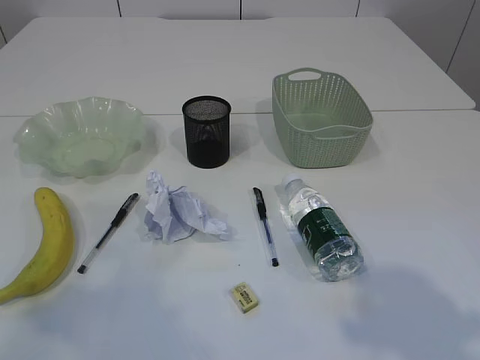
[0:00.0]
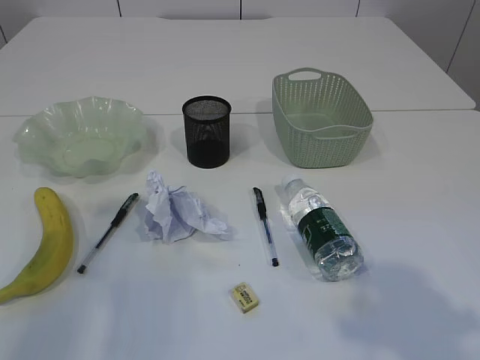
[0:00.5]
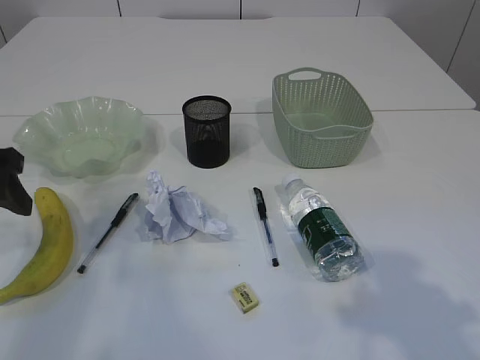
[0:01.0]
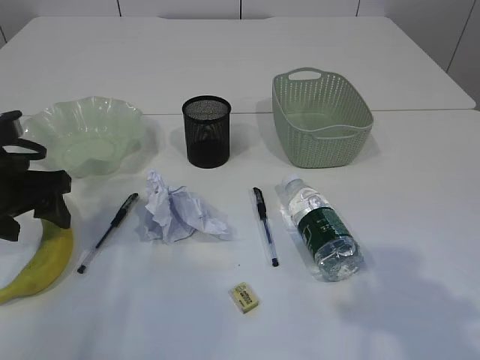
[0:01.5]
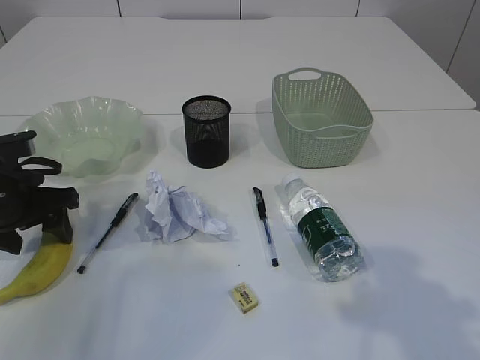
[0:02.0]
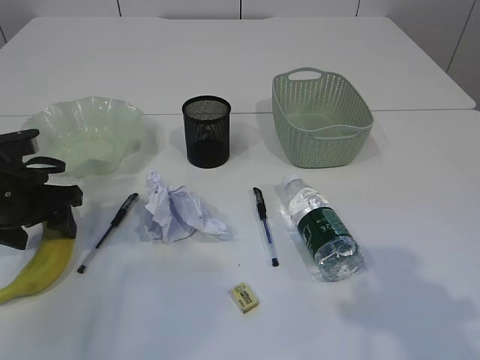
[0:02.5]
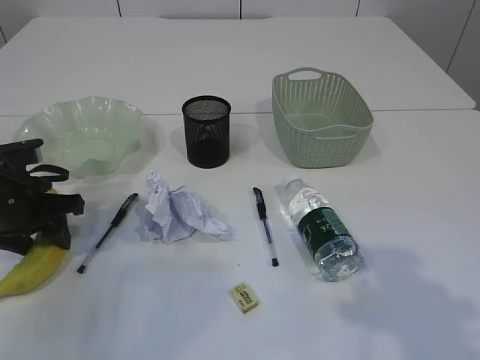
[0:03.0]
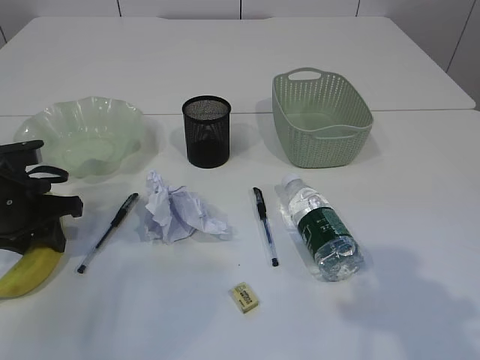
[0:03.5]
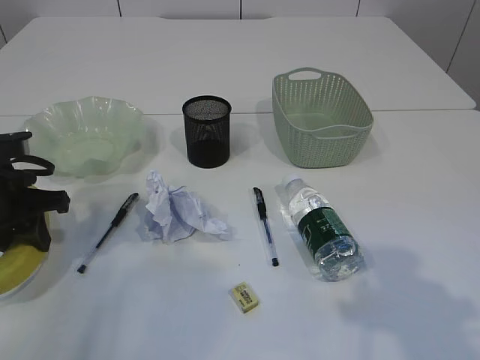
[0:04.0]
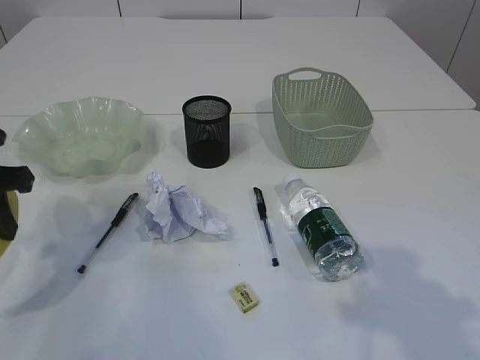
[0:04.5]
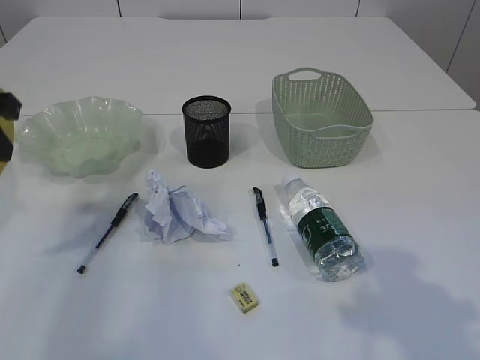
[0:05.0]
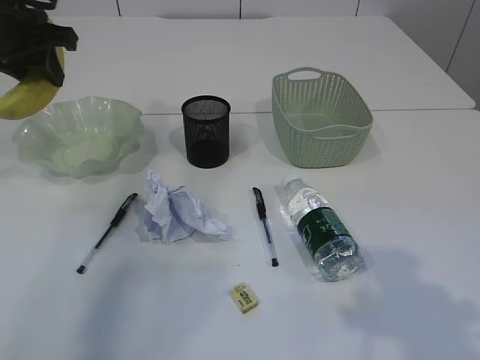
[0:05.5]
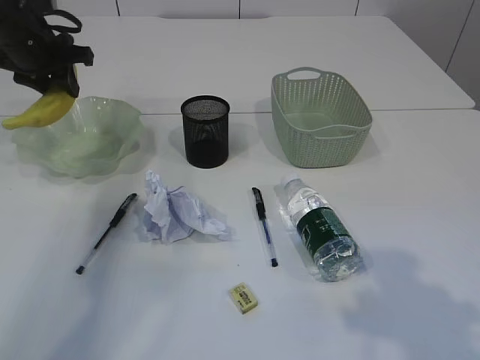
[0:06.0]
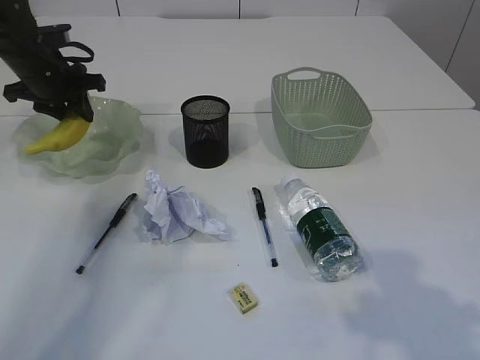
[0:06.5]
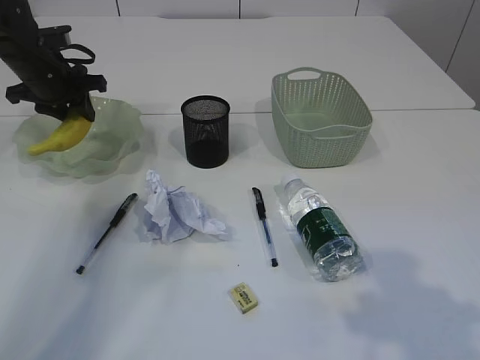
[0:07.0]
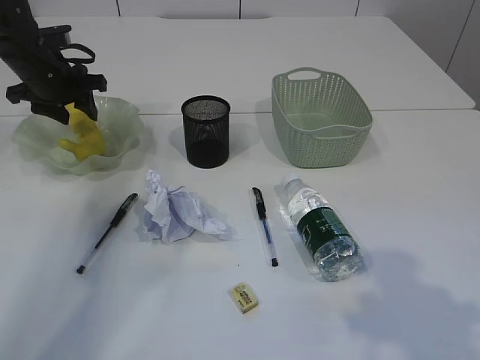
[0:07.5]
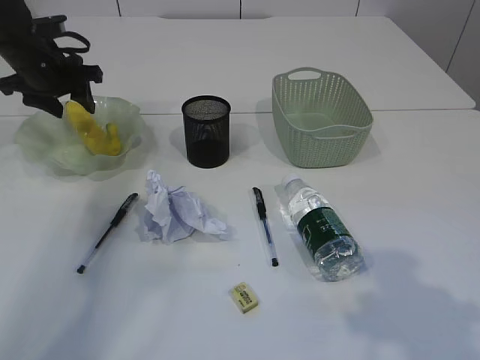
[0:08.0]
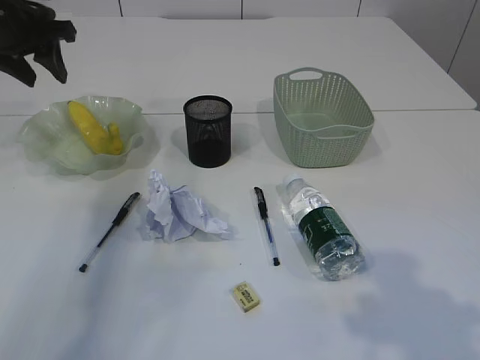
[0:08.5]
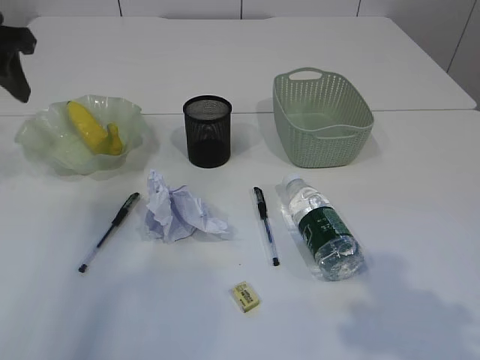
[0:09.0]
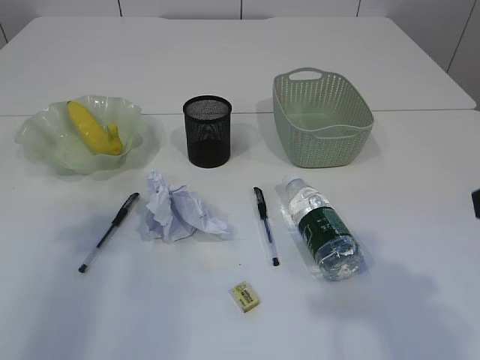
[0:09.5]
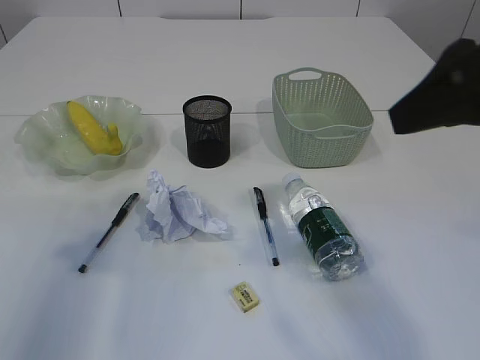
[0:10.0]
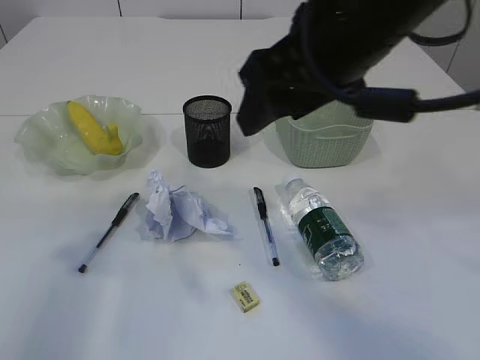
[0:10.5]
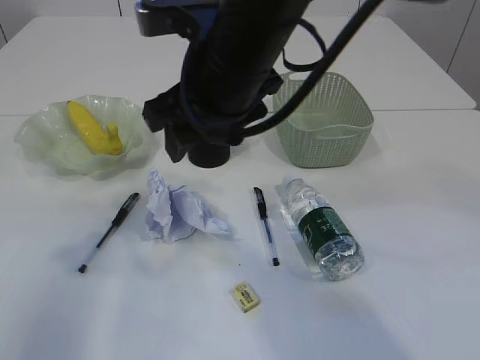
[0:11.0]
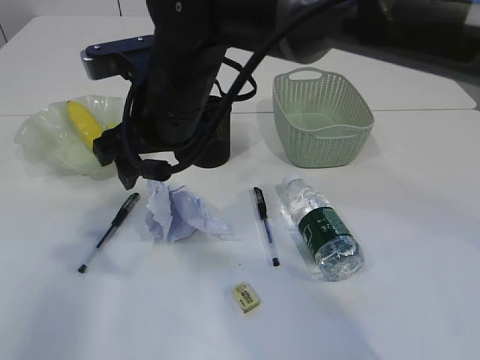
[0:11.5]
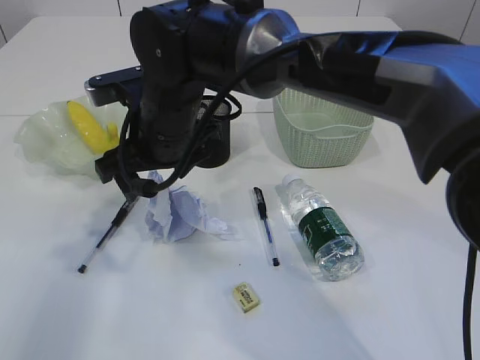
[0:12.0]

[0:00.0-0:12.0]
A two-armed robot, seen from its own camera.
Step, 0:04.5 to 0:08.0: Place the banana in the plate.
0:00.0 to 0:02.0: The left gripper shifts some 30 cm forward and downward.
0:02.0 to 0:04.0: The left gripper closes up.
0:04.0 to 0:06.0: The left gripper moves forward and upward, roughly 20 cm.
0:06.0 to 0:08.0: The grippers move only a little.
0:08.0 to 0:10.0: The left gripper goes roughly 30 cm backward, while the right gripper is displaced upward, forward and to the left by about 15 cm.
0:10.0 to 0:12.0: The right gripper shifts approximately 35 cm to the left, forward and downward.

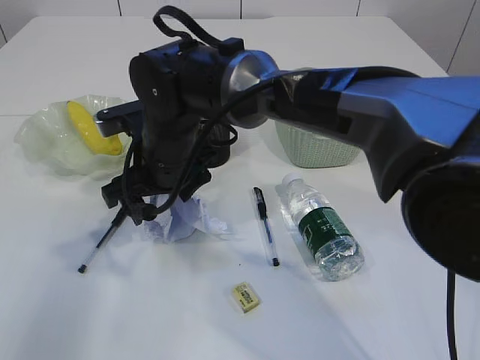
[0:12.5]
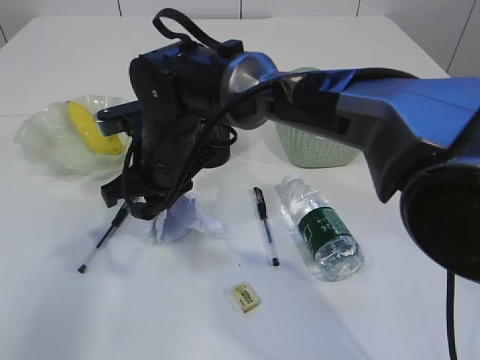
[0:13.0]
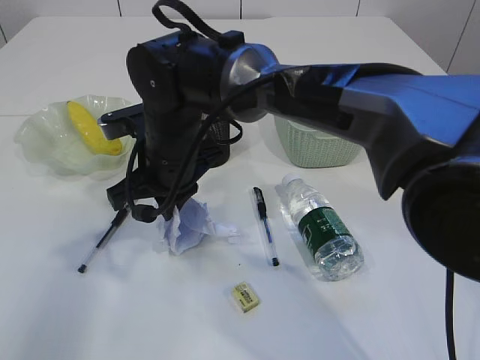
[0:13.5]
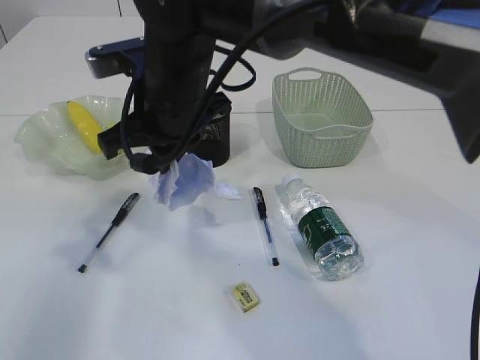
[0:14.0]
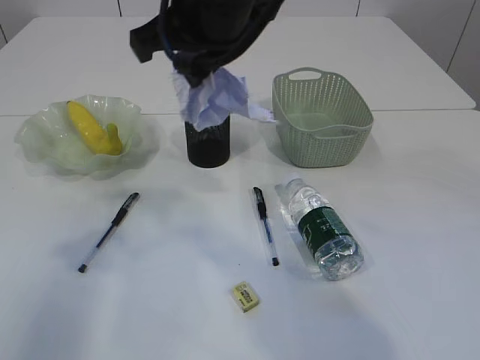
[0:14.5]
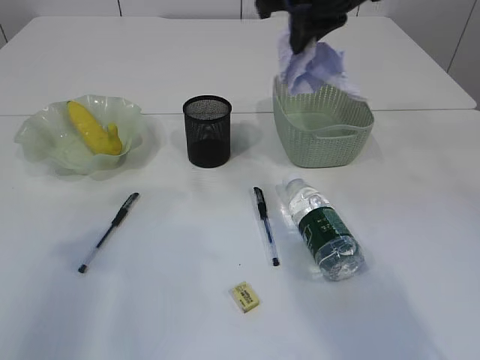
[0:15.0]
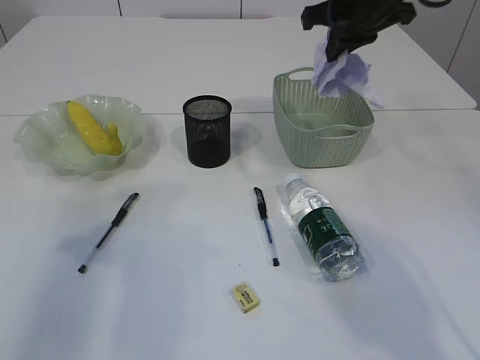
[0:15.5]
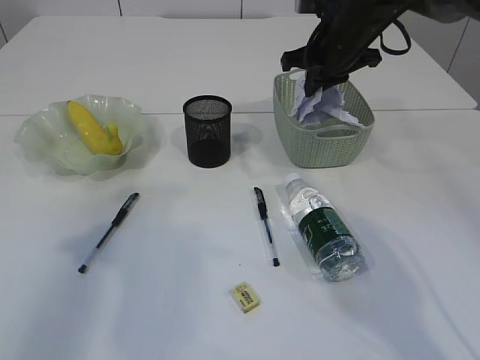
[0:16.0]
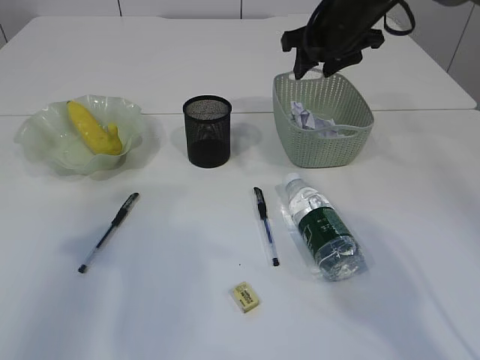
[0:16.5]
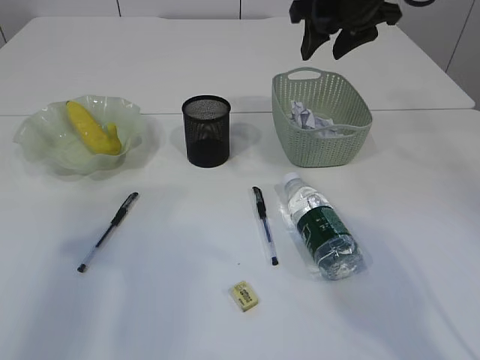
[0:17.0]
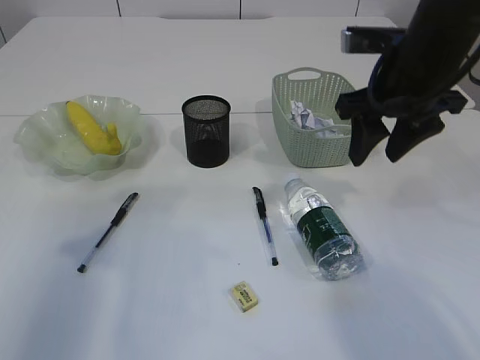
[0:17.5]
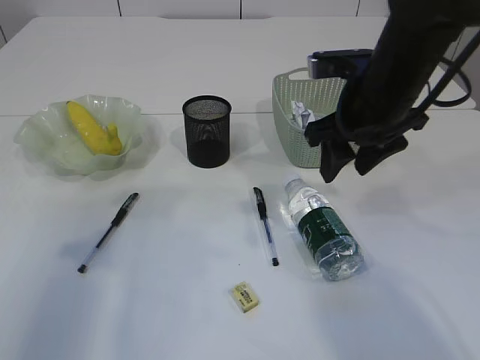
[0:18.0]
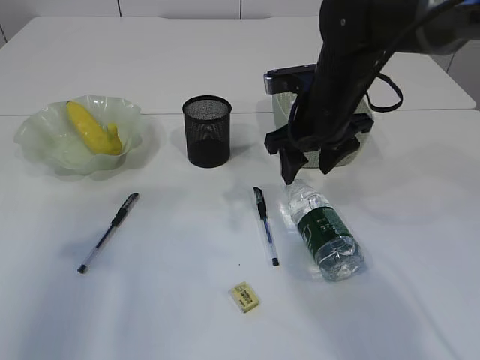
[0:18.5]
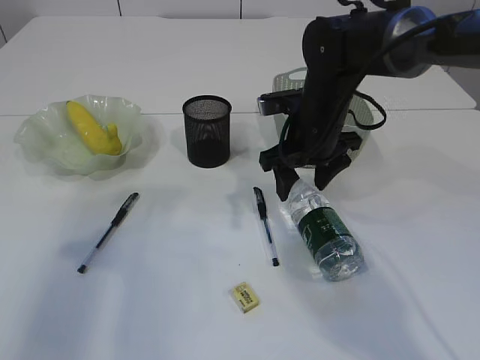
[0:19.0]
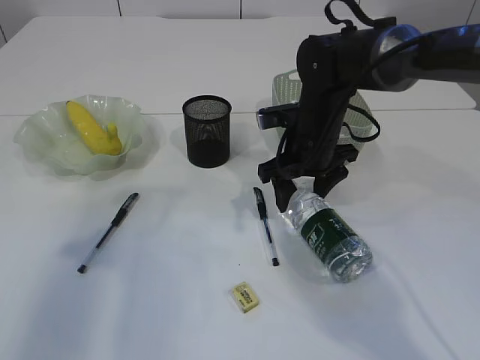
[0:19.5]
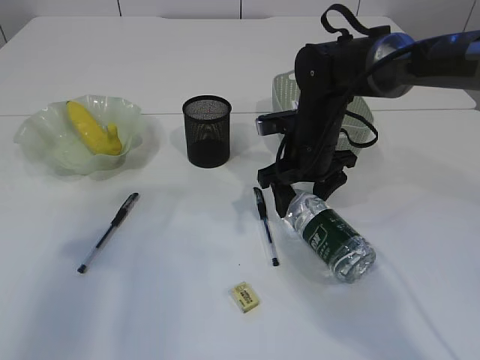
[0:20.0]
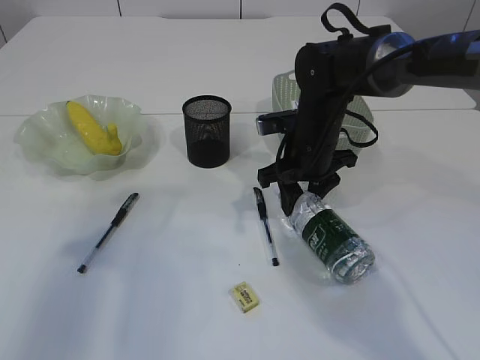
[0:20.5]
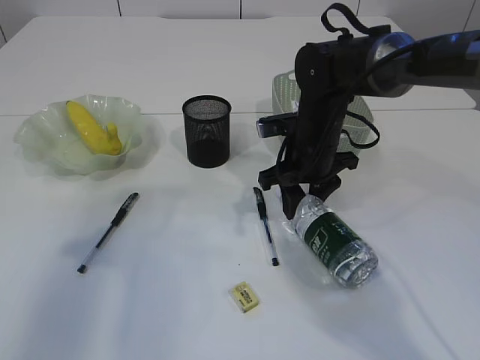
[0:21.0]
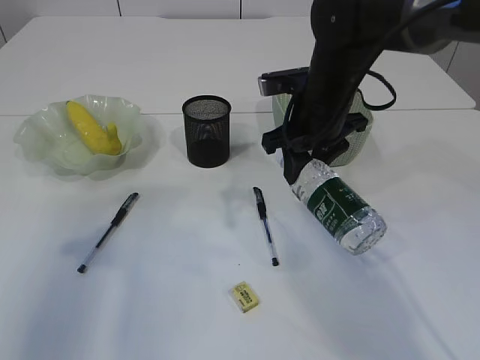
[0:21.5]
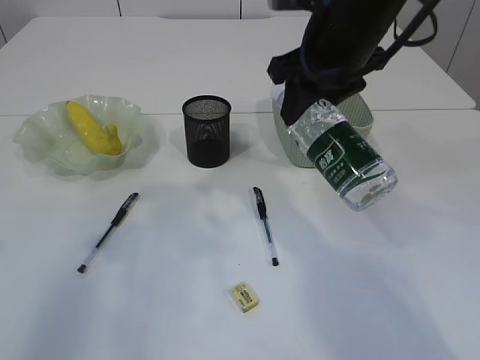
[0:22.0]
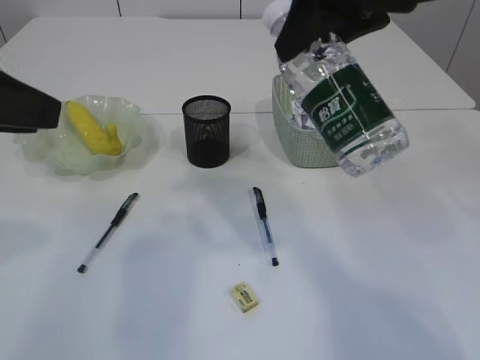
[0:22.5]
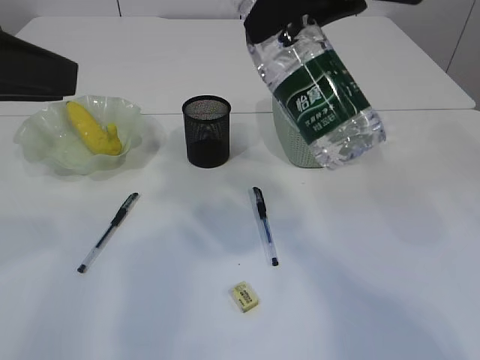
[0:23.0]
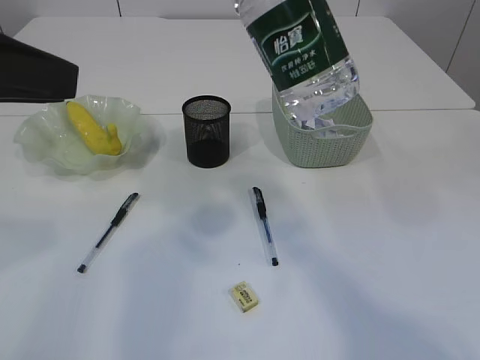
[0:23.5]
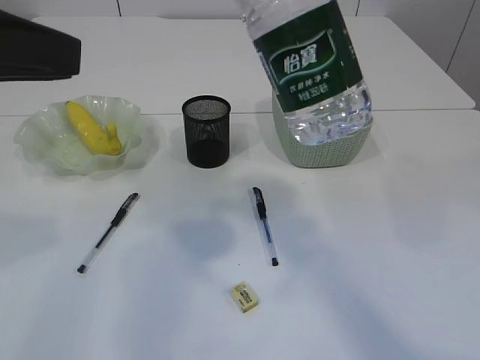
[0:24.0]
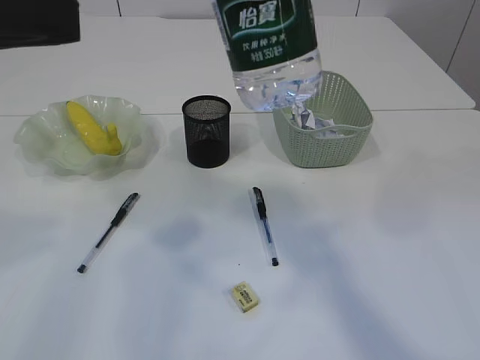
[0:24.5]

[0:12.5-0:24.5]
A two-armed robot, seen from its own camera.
Step, 0:14.5 to 0:16.5: Place the waste paper in the basket.
Step, 0:17.0 to 0:21.5: Pick up the bottle with the right arm.
0:12.5 to 0:14.5: The right gripper heads upward and to the right, covering approximately 20 cm, and closes up.
0:14.5 to 0:16.5: The right gripper heads to the right, forward and downward, covering roughly 25 cm, and opens.
0:16.5 to 0:18.5: The right gripper moves backward and downward, some 10 cm.
0:18.5 to 0:20.5: The right gripper travels downward by some 5 cm.
0:20.5 to 0:22.5: The right gripper travels upward by roughly 25 cm; the left gripper changes place by about 5 cm.
0:22.5 to 0:24.5: The right gripper moves backward and upward, about 10 cm.

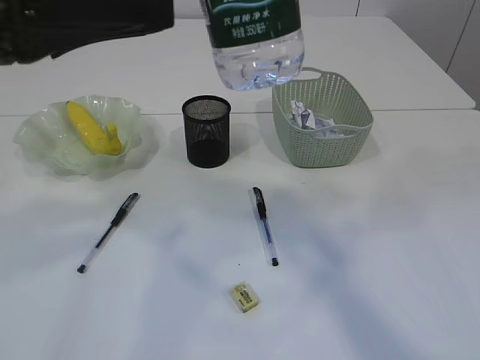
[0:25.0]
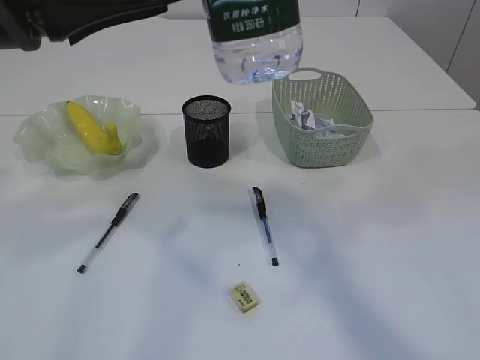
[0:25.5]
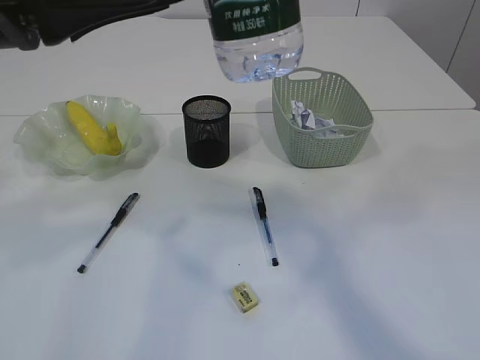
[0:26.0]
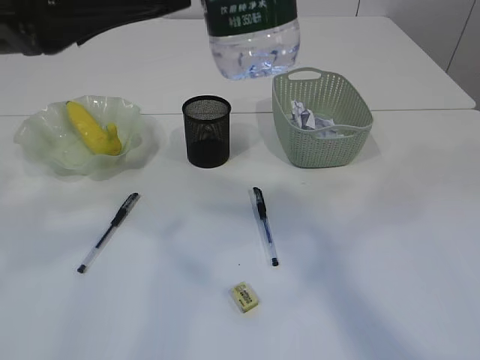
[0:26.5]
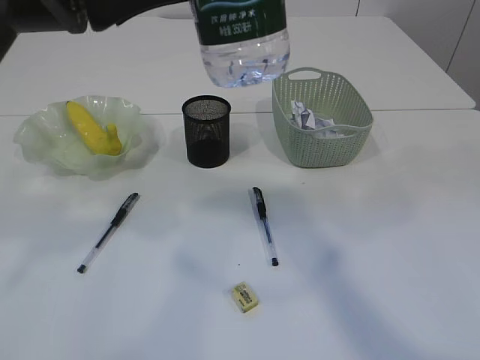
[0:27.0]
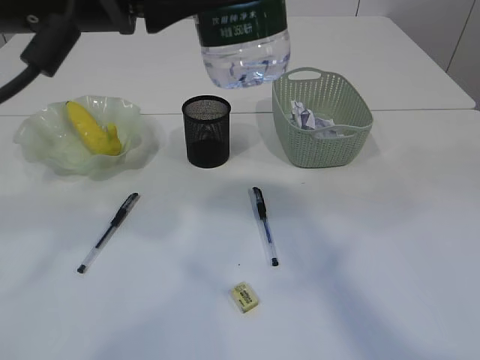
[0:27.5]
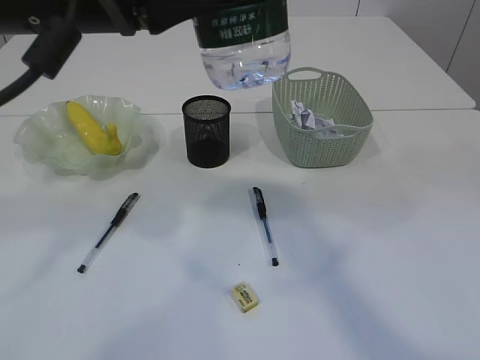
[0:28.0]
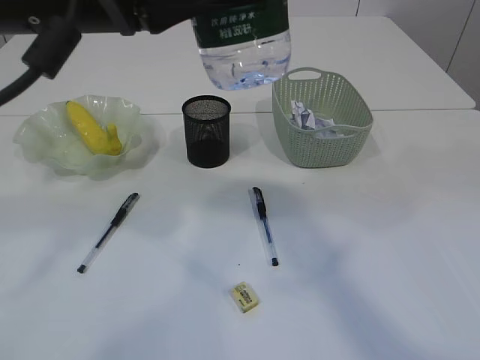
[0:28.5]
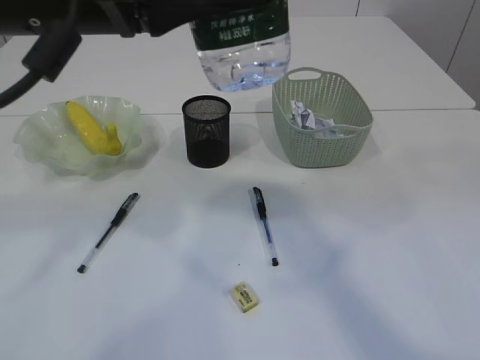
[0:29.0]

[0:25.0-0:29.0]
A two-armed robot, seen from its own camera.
0:25.0 to 0:27.0: The grippers move only a little.
0:27.0 to 0:29.0: The left gripper closes its fingers, while the right gripper opens its fingers.
